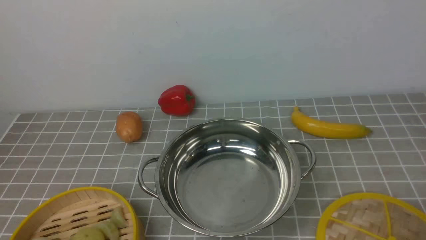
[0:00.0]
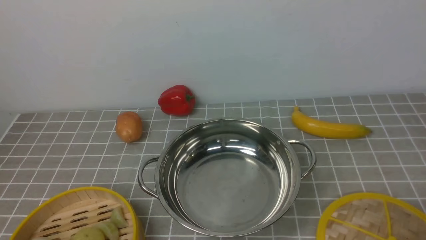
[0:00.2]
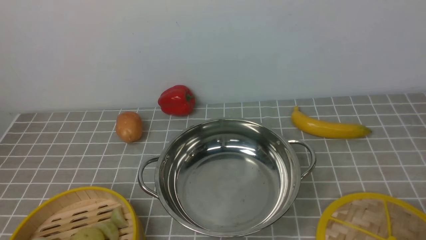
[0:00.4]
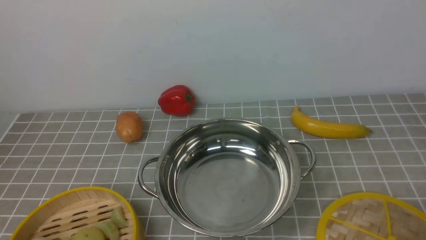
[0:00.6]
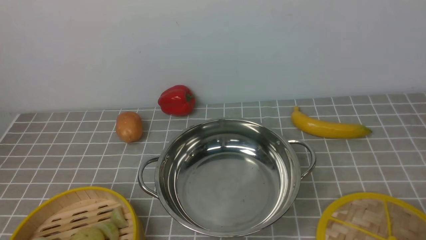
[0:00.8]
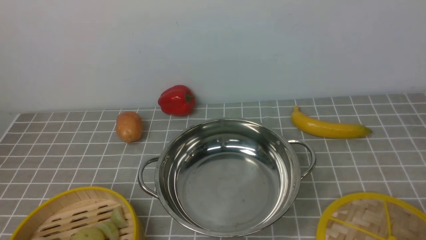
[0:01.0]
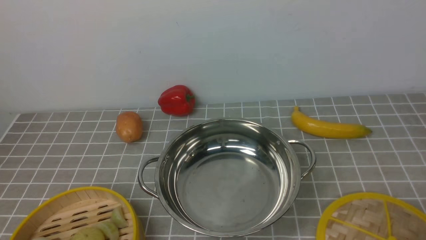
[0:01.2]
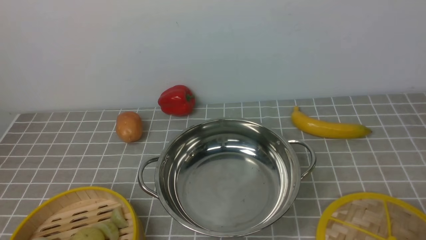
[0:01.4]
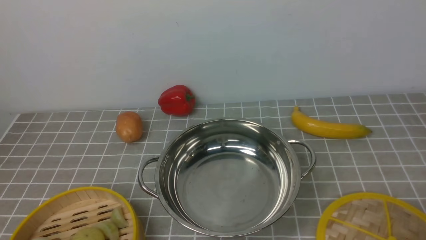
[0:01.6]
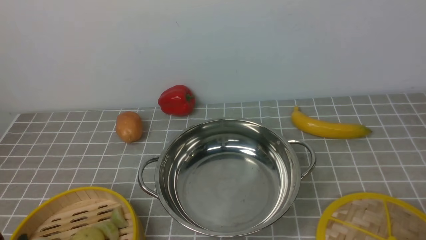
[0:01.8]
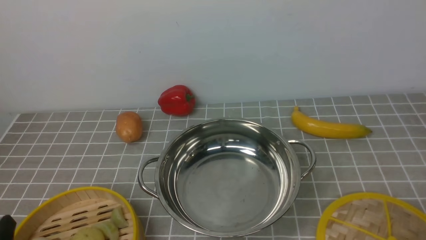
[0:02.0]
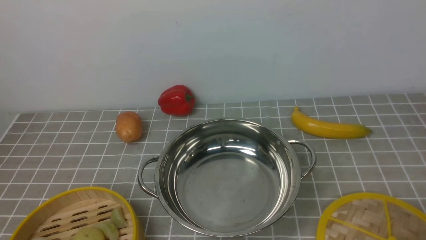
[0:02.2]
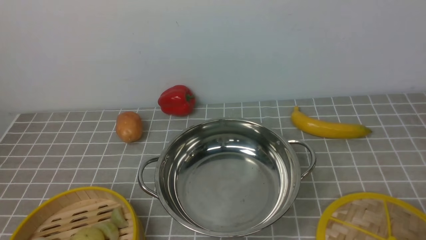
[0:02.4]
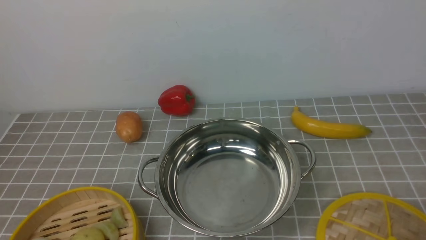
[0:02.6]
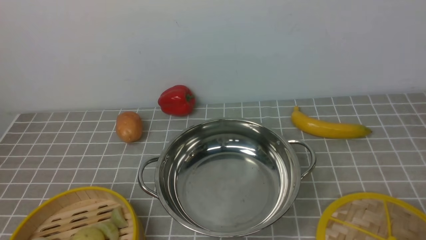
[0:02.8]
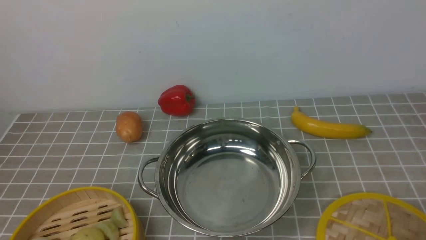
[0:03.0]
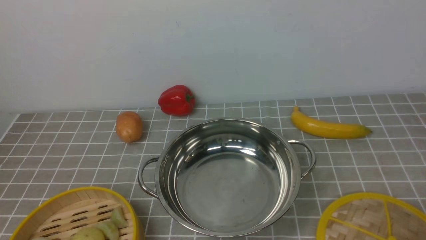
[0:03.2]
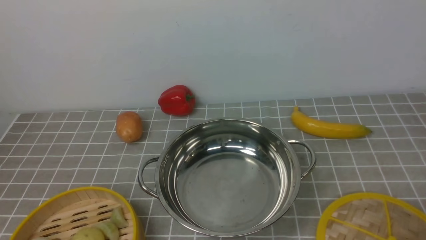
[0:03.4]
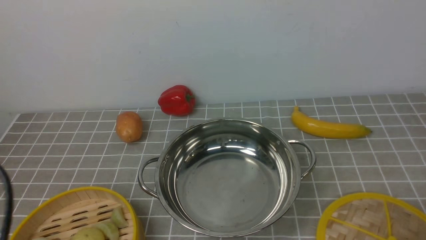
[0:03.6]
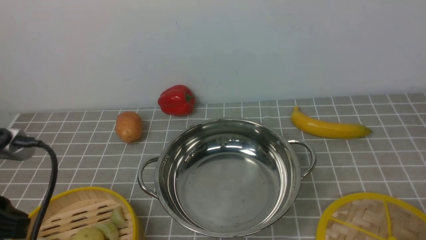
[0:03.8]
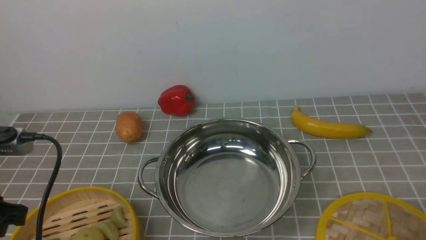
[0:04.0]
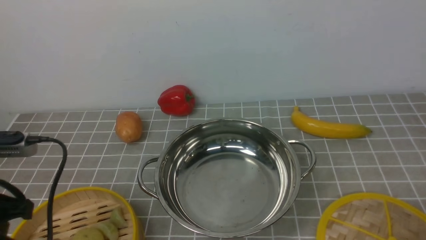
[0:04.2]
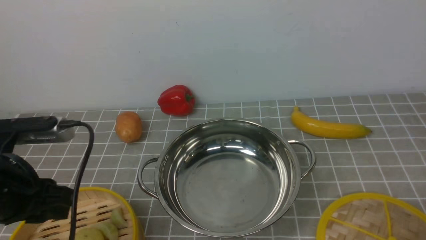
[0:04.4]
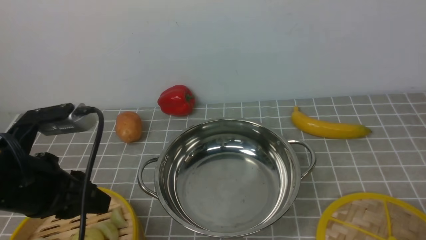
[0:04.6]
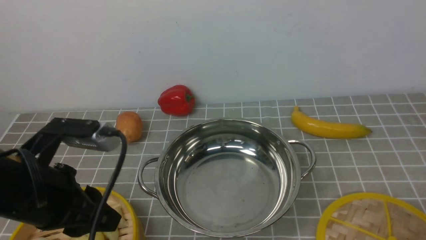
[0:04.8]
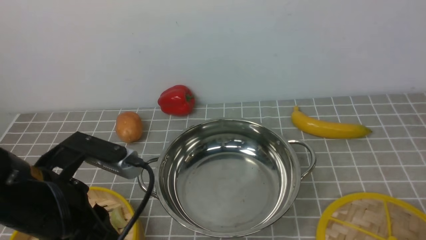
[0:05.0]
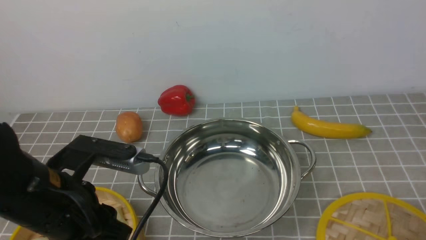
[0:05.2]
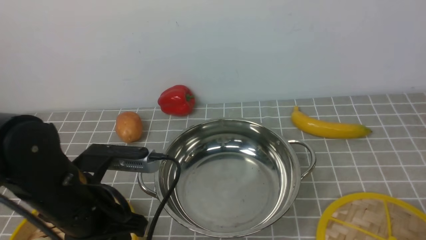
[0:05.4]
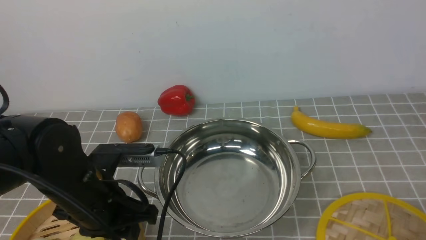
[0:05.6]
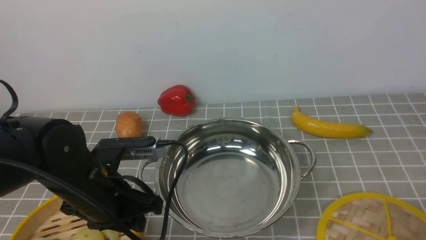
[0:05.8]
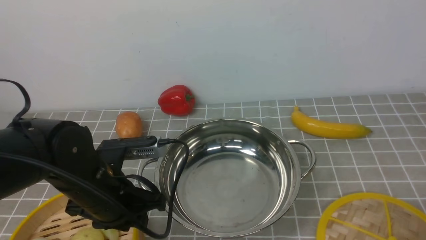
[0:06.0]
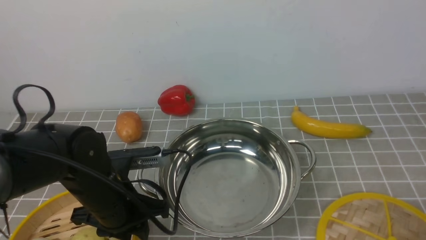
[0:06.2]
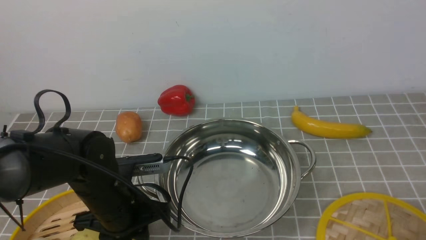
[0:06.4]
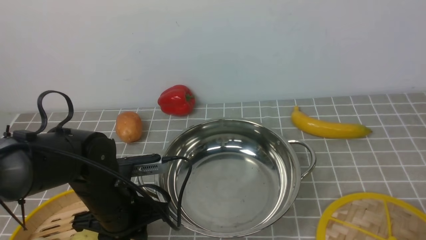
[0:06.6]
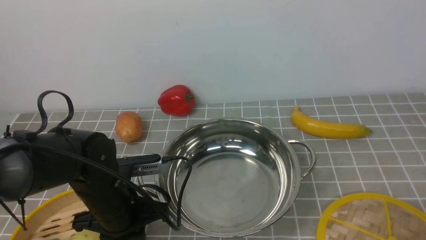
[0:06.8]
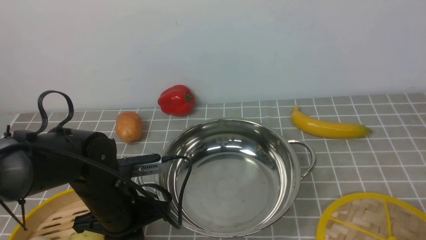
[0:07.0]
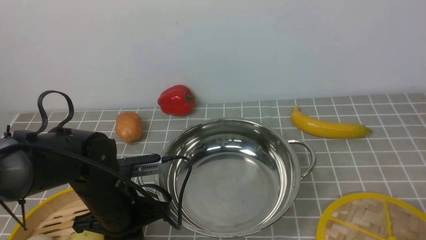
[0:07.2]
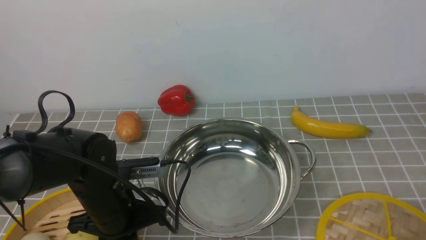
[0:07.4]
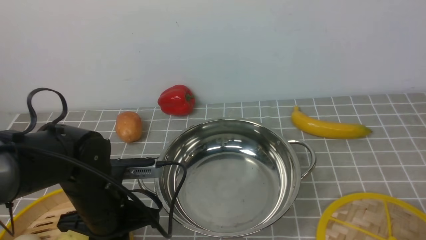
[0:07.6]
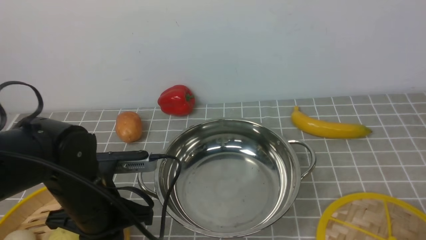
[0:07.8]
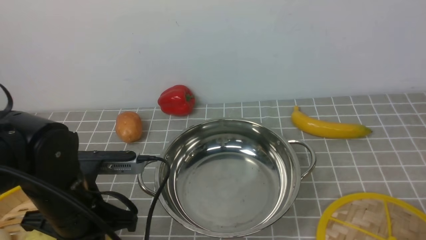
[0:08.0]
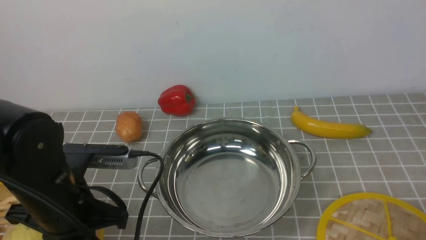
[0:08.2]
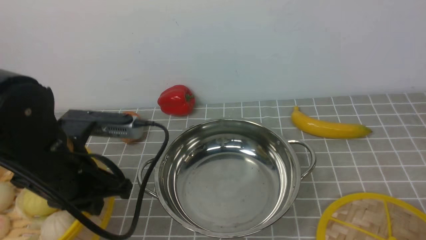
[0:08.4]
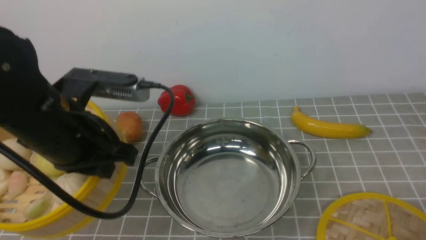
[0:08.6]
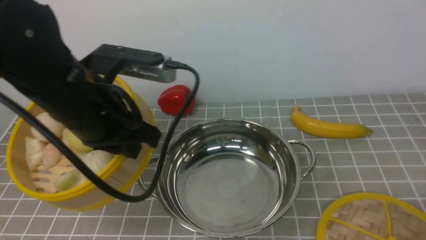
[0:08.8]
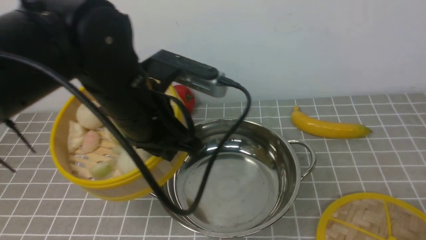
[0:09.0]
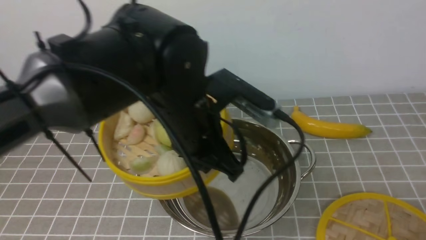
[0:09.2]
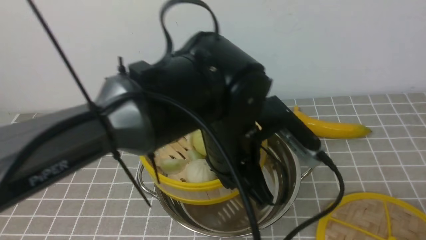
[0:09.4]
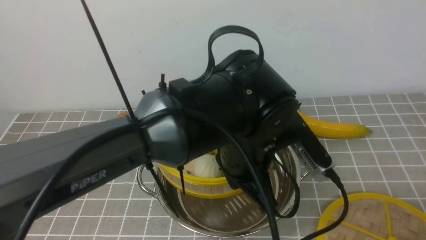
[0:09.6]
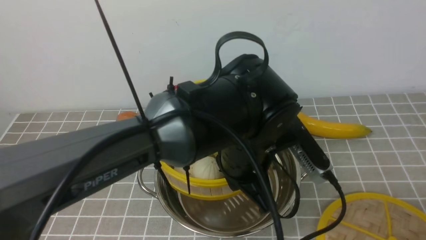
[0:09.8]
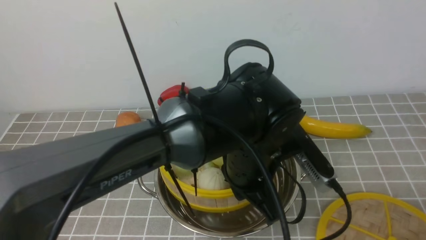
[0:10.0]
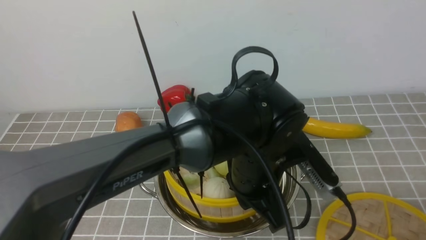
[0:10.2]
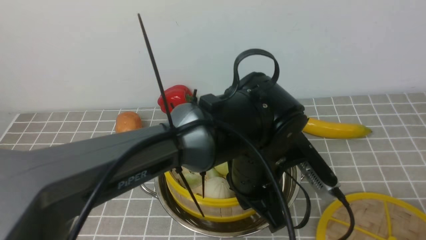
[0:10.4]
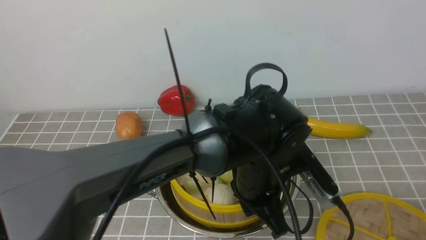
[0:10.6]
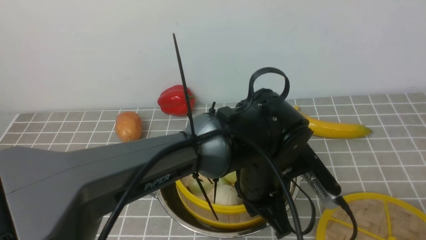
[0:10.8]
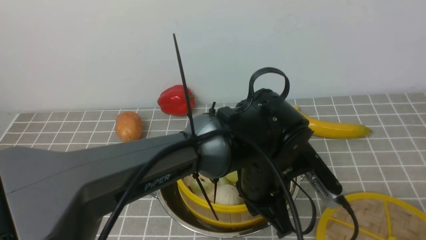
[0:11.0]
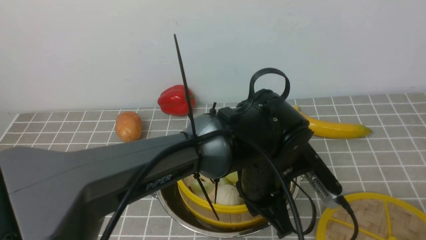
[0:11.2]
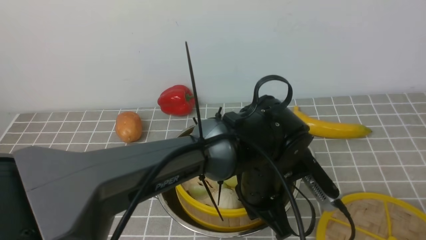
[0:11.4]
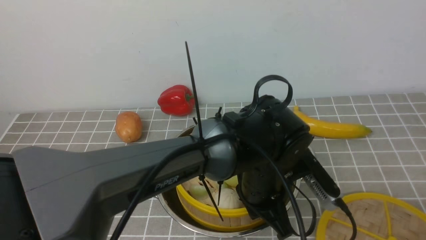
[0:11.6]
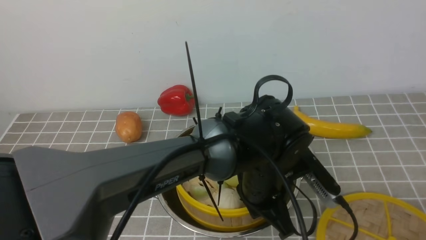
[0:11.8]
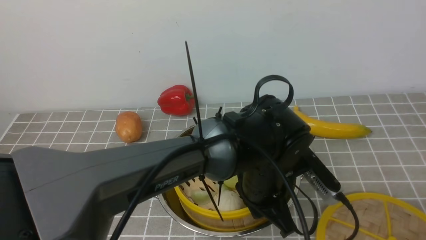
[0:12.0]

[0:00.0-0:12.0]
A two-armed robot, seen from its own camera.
Task of the whole recording: place the steamer in the pot on the grey tablecloth, and put the lid on the steamer.
Step, 0:00.0 to 0:07.8: use the left arm to lift the steamer closest to it.
0:00.0 to 0:01.6: Neither gripper changes place.
0:03.0 to 0:04.4: The left gripper heads forward, covering approximately 15 cm.
0:04.4 to 0:06.0: The left gripper goes about 10 cm to the right and downward.
0:06.0 to 0:07.6: The left gripper closes.
0:07.6 to 0:09.0: The left gripper shifts roughly 15 cm upward and to the right.
0:09.0 to 0:10.4: The left gripper travels to the right and downward by about 15 cm.
0:10.4 to 0:12.0: The left gripper opens.

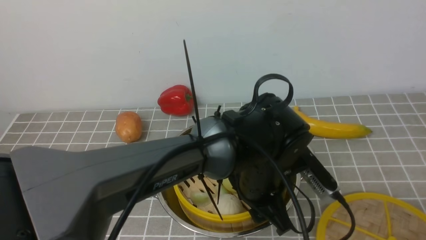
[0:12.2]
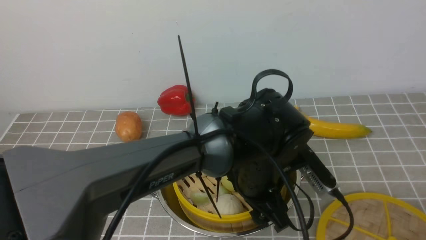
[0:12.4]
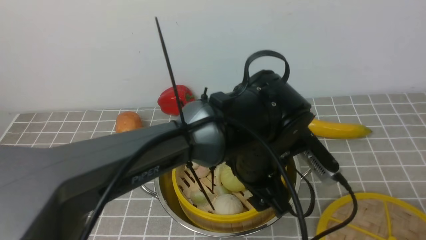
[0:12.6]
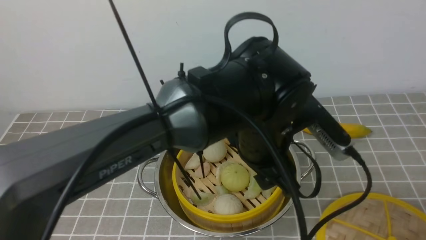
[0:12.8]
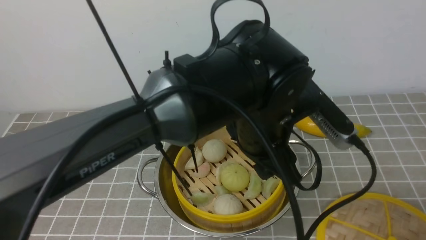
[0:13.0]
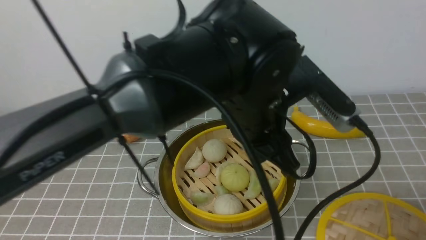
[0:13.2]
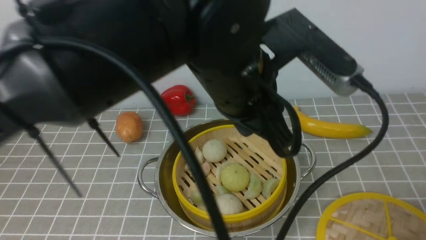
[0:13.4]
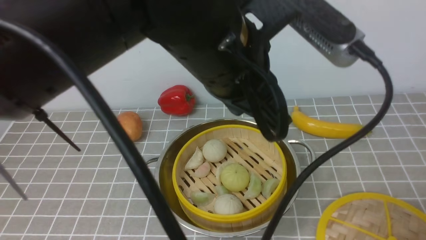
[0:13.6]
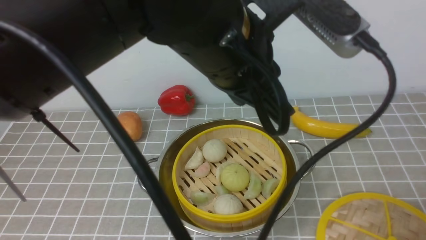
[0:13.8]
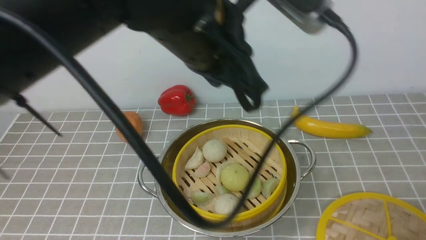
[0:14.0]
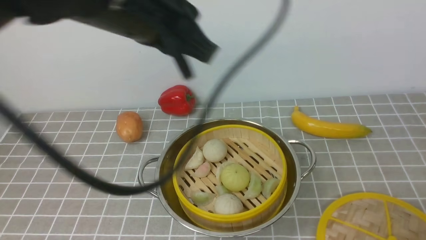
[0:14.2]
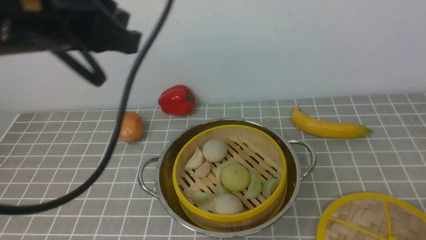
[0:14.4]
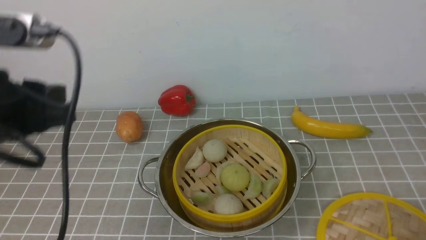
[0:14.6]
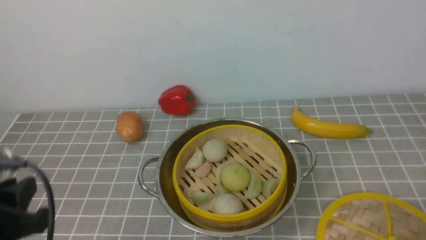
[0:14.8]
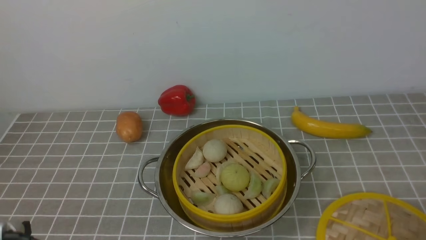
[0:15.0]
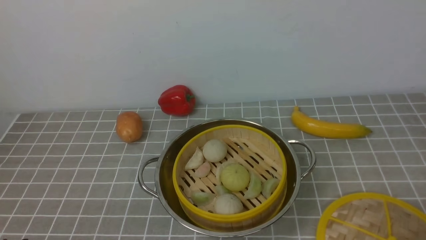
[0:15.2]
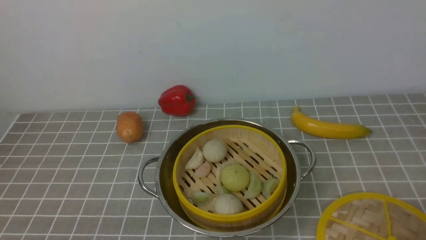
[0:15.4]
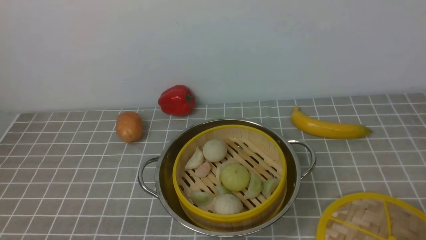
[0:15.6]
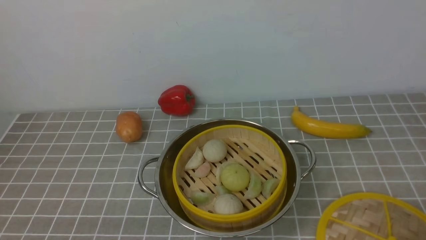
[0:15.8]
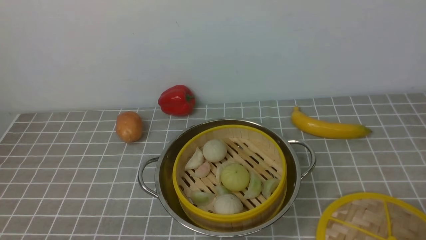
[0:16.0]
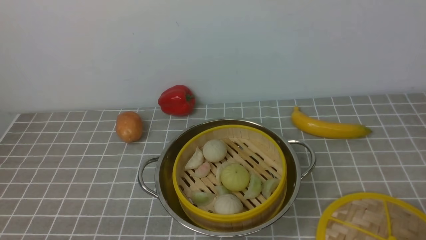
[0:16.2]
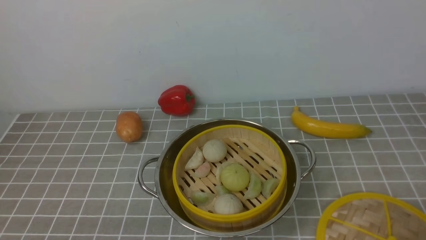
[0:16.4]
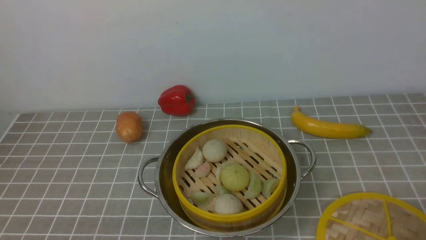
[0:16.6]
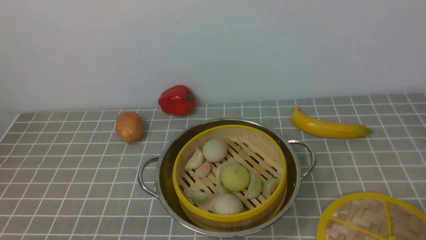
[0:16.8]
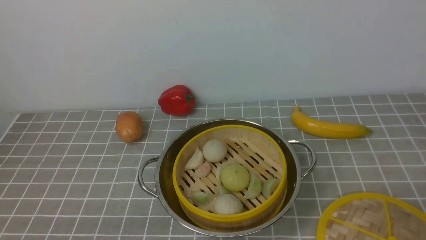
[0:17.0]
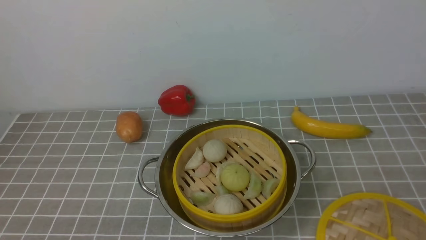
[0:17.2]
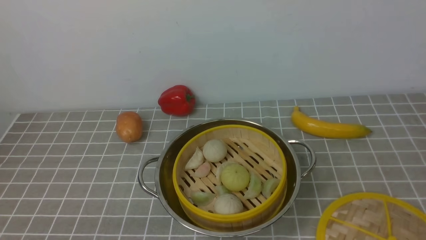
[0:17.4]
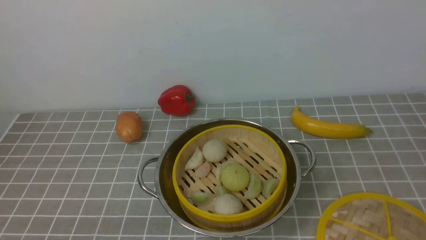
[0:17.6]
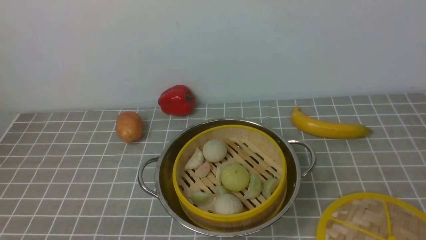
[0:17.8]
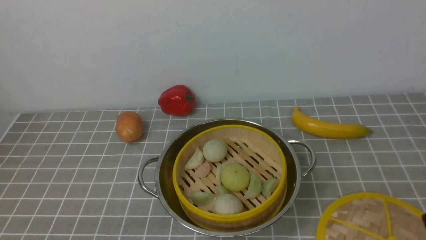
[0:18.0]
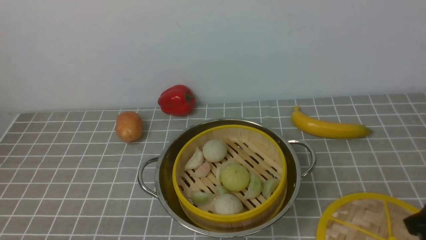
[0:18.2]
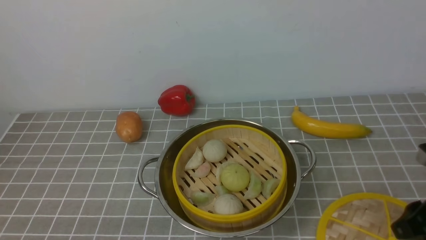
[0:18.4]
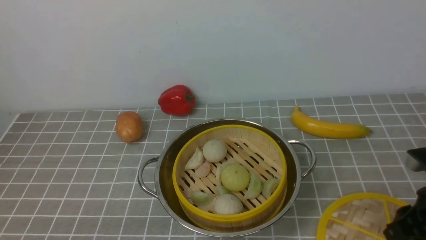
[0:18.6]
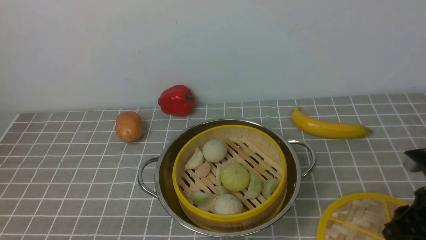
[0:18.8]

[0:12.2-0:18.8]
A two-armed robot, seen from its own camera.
Task of the whole recording: place the steamer in the pot on the grey tablecloth, and put the lid on the steamer.
0:12.2 to 0:13.8: The left gripper shifts roughly 20 cm upward, and closes its fingers.
0:13.8 to 0:15.4: The left gripper is displaced to the left, downward and backward by roughly 40 cm.
0:17.2 to 0:18.8: The right gripper shifts approximately 15 cm forward and downward.
